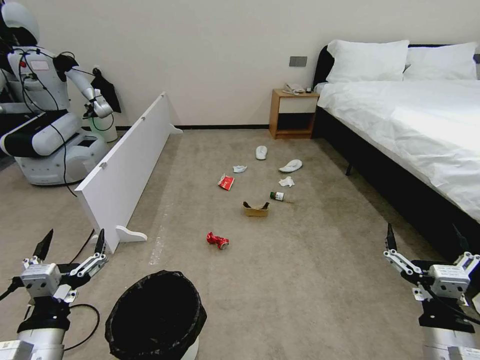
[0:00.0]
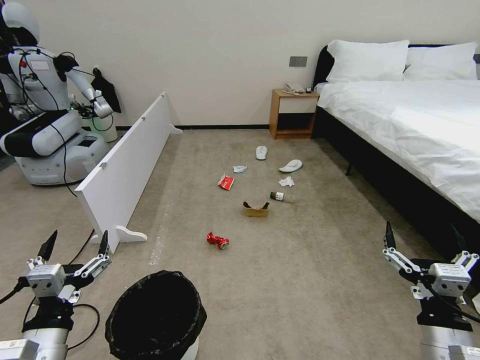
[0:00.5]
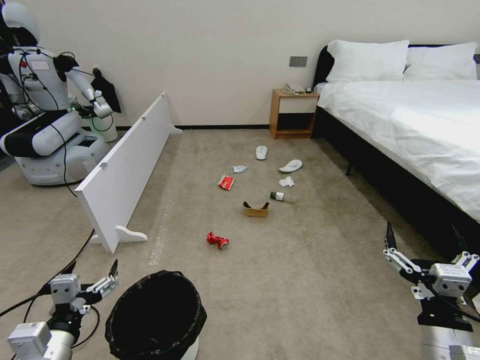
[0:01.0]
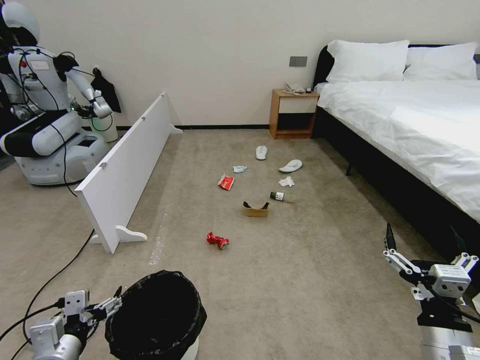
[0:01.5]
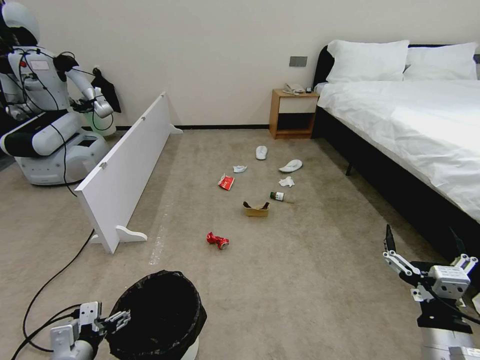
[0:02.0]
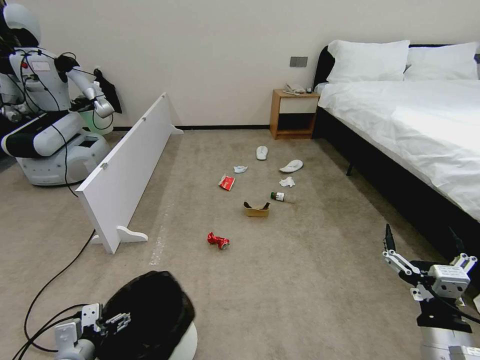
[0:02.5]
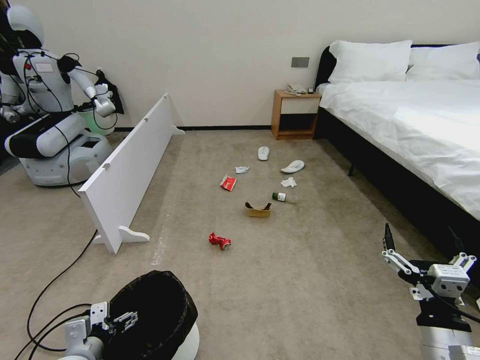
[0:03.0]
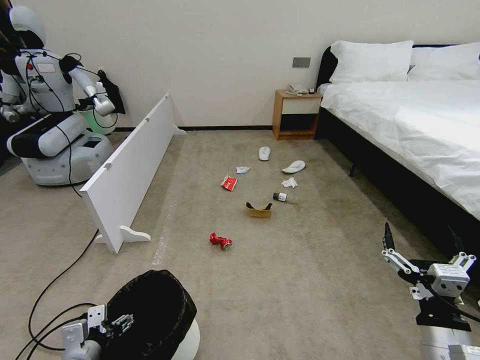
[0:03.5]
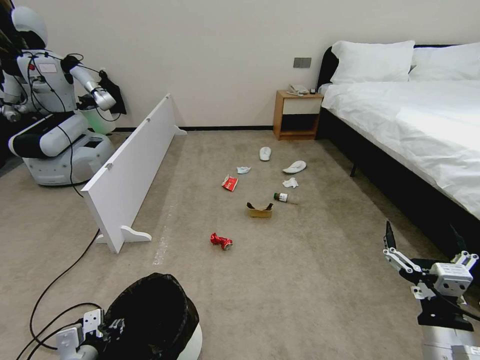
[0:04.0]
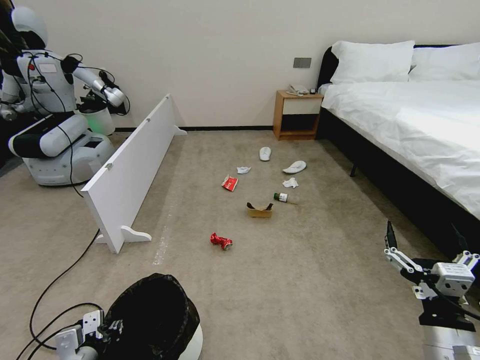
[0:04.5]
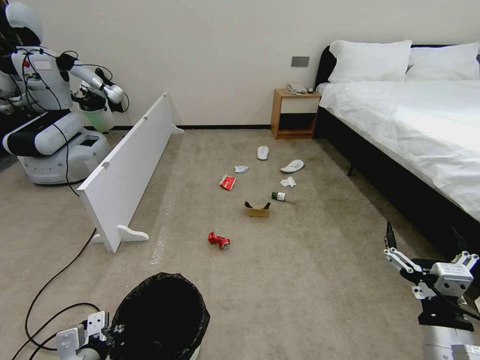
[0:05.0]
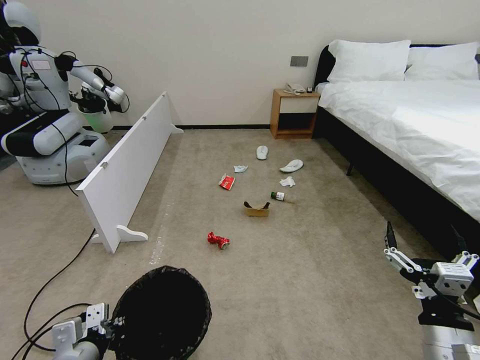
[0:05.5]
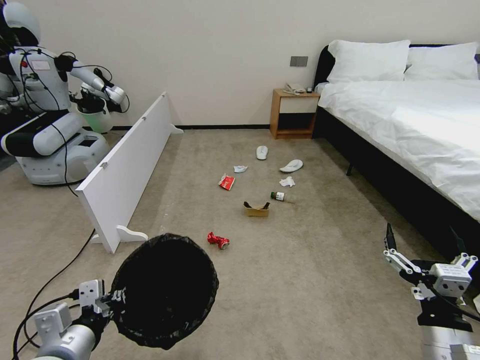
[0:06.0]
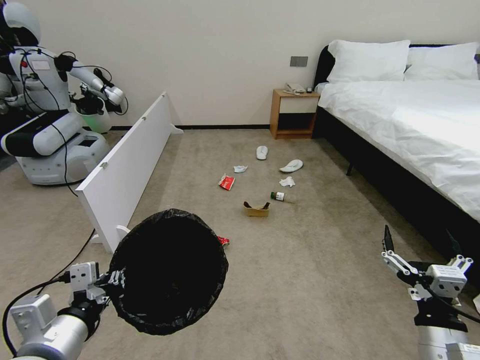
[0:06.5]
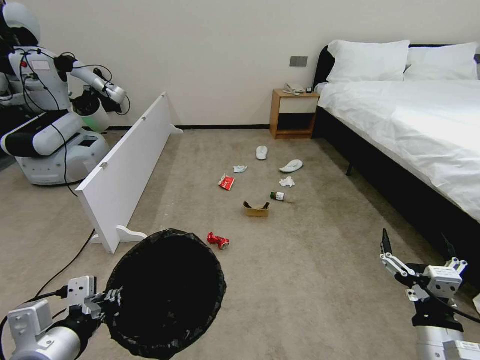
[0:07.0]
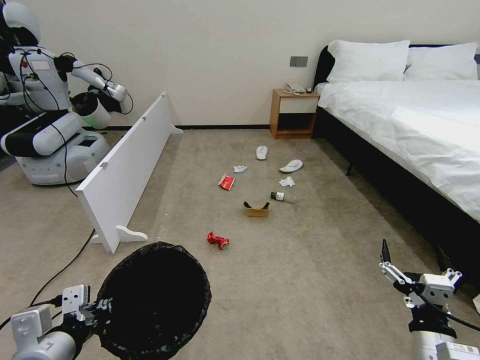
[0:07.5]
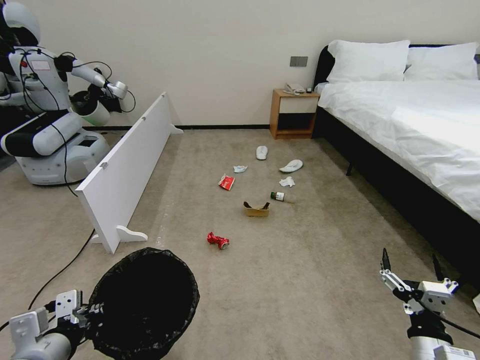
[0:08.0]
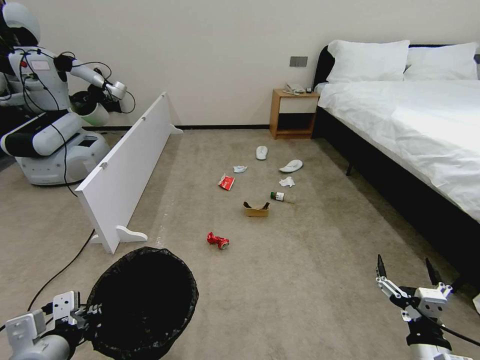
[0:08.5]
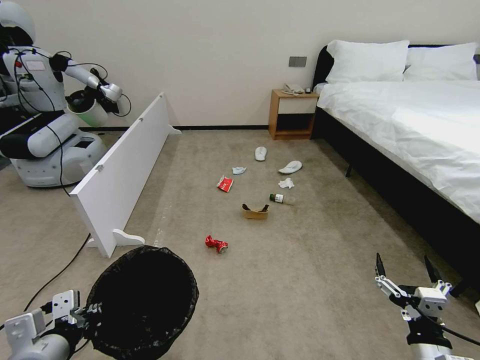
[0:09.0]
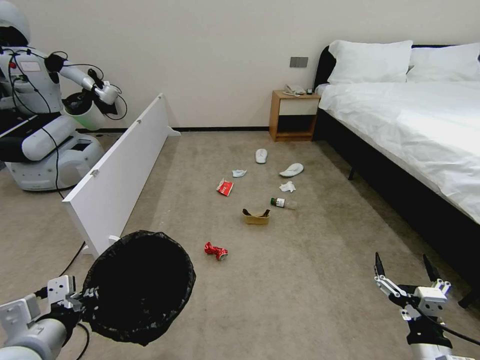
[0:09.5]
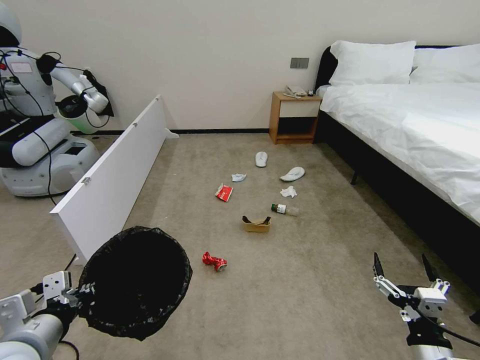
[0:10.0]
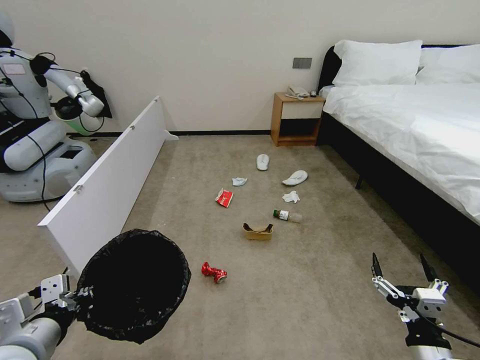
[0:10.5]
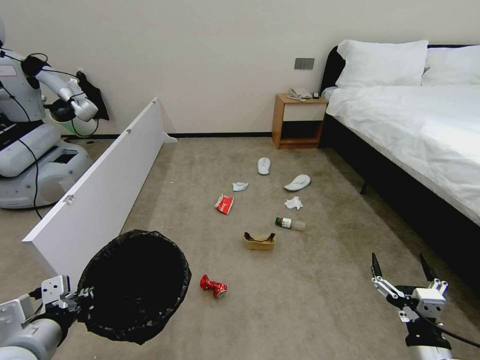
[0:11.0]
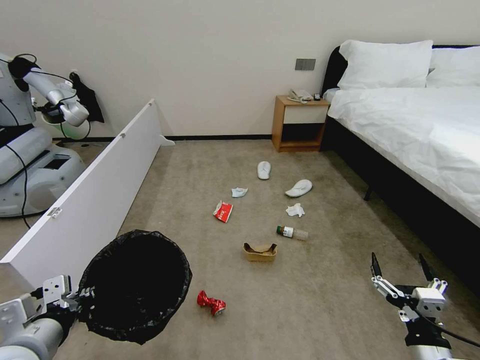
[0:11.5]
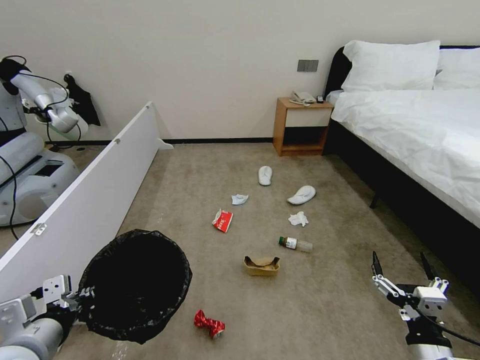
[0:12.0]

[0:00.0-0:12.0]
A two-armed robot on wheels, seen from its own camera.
Task of the whole recording: Pick up the trash bin, then pick up the garbage from the floor and place it into the trash bin.
0:02.0 to 0:04.0: The left gripper closes up.
0:04.0 to 0:06.0: The left gripper moves upward, roughly 15 cm, and closes up.
0:06.0 to 0:08.0: The right gripper is displaced downward by approximately 5 cm.

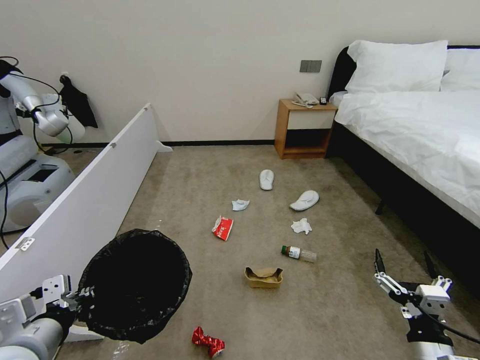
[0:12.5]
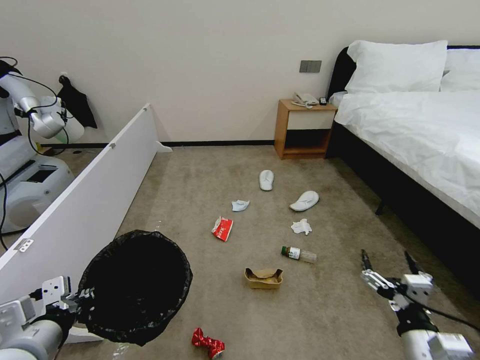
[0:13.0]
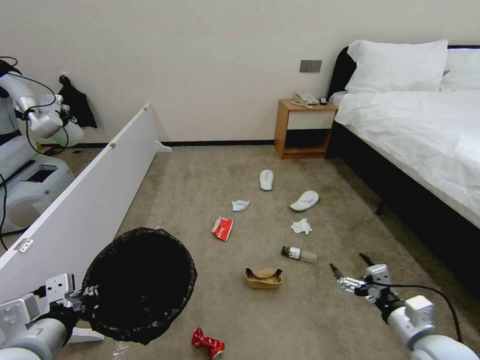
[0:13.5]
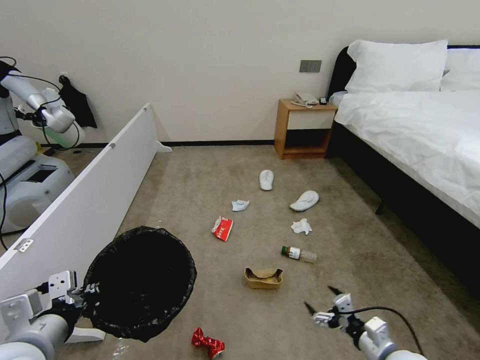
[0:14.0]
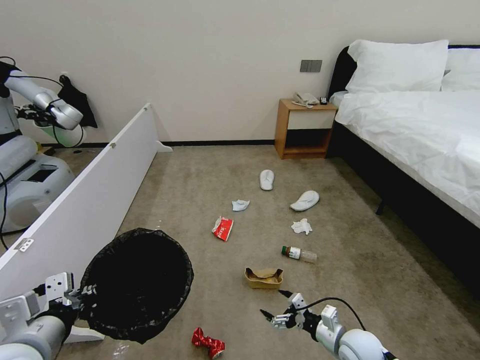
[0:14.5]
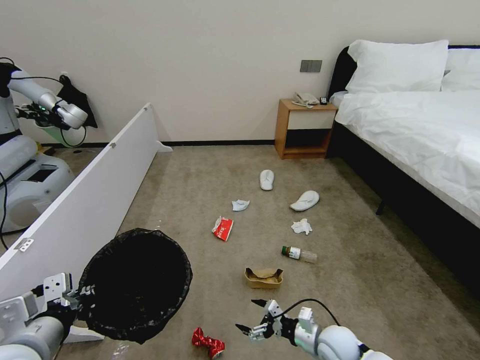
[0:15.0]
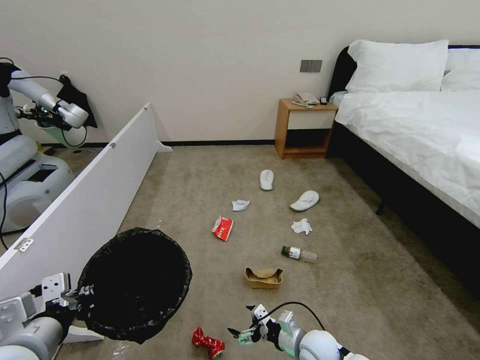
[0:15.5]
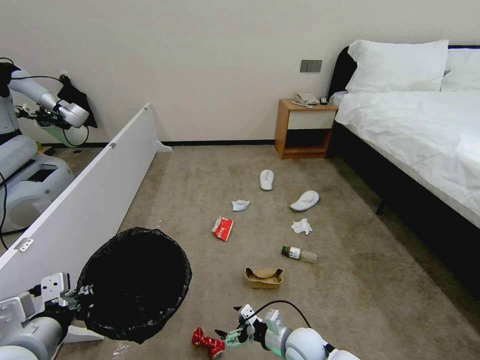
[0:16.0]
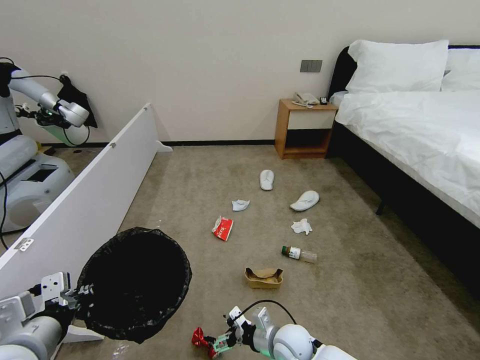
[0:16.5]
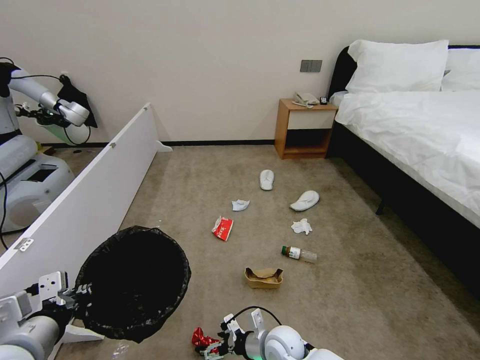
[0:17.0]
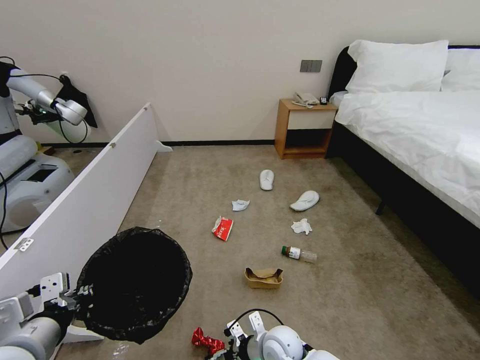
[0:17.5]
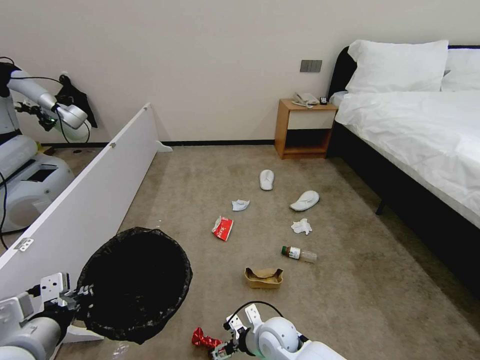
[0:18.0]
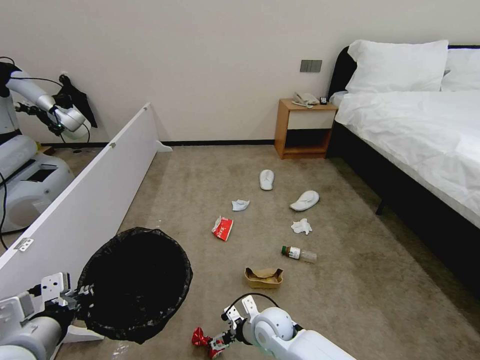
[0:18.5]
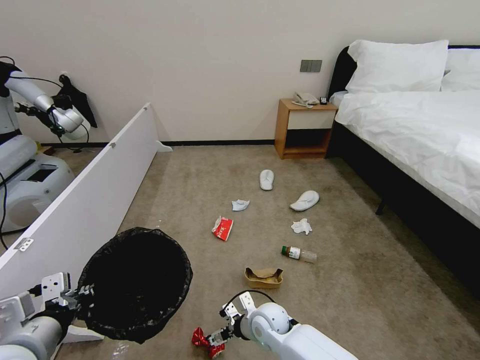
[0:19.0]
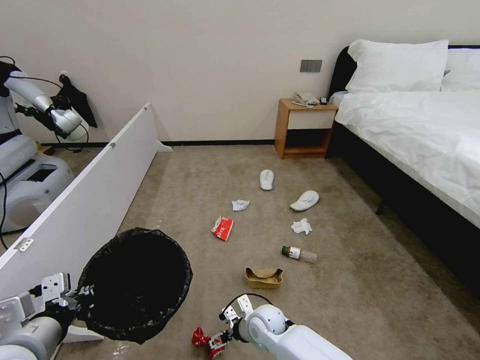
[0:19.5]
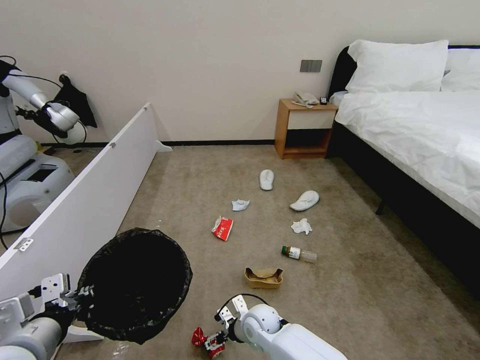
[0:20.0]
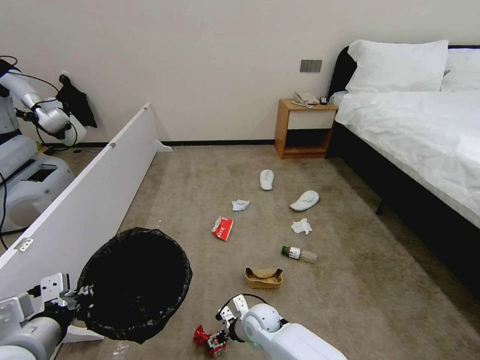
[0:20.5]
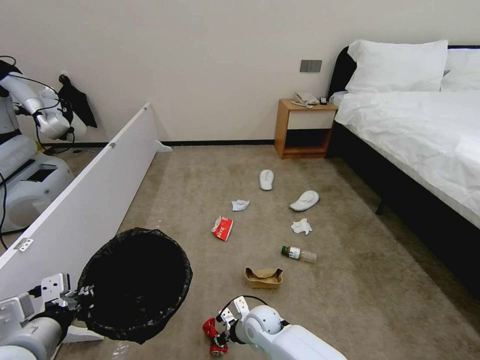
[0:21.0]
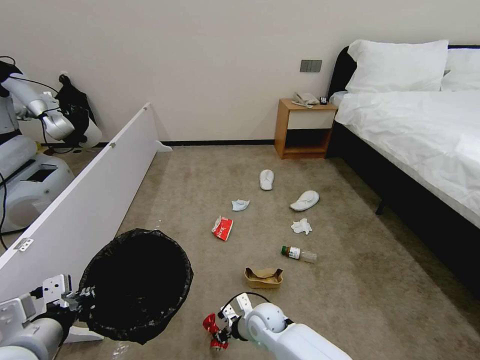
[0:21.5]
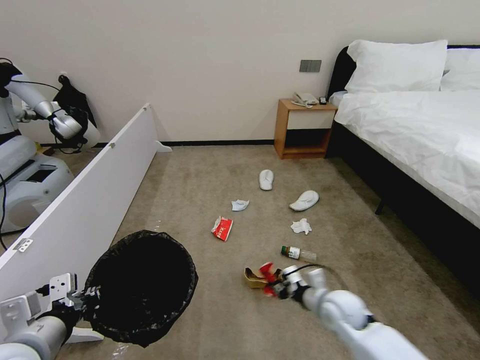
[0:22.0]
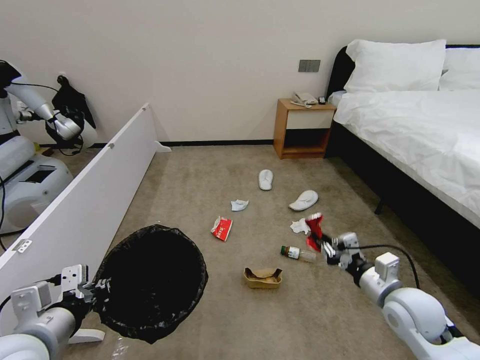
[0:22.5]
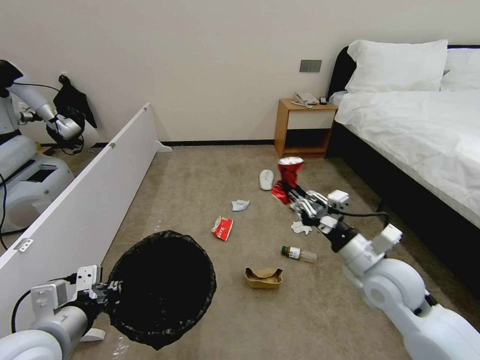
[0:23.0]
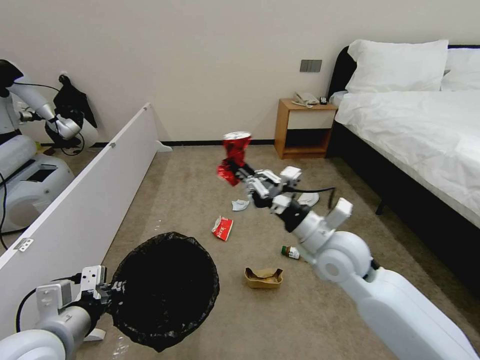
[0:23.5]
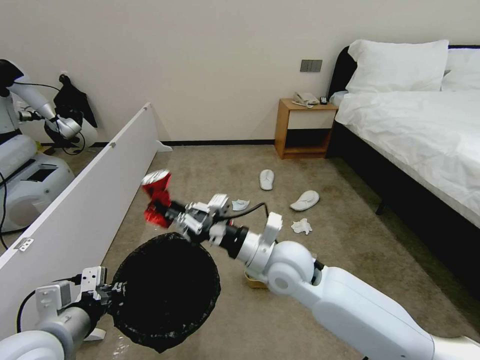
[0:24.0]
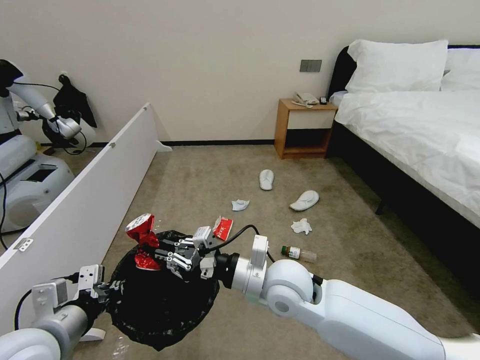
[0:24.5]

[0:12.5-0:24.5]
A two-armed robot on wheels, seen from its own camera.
Task of the whole recording: Pick up the trash bin, then pick up the garbage from the floor and place it into the trash bin.
0:12.5 to 0:14.5: The right gripper moves forward and downward, about 20 cm.
0:14.5 to 0:16.5: The right gripper heads to the left, covering approximately 15 cm.
0:16.5 to 0:18.5: The right gripper ends up some 5 cm from where it was.
0:18.5 to 0:20.5: The grippers stay close to where they were, moving slightly.
0:20.5 to 0:22.5: The right gripper travels to the right and upward by roughly 35 cm, and closes.
0:22.5 to 0:24.5: The right gripper is displaced to the left by approximately 25 cm.

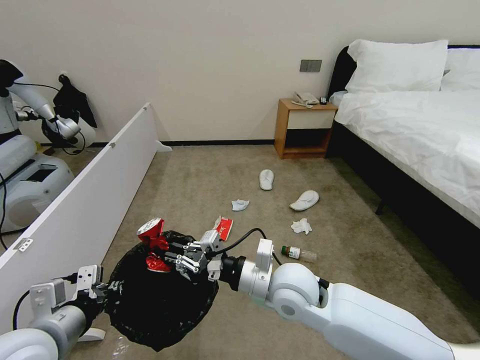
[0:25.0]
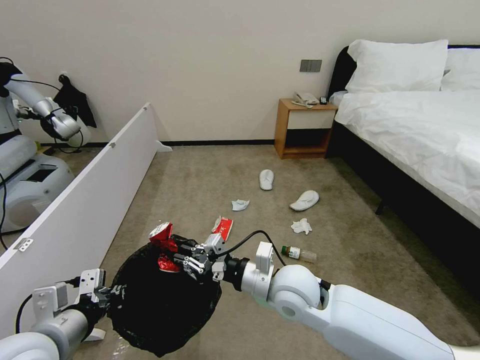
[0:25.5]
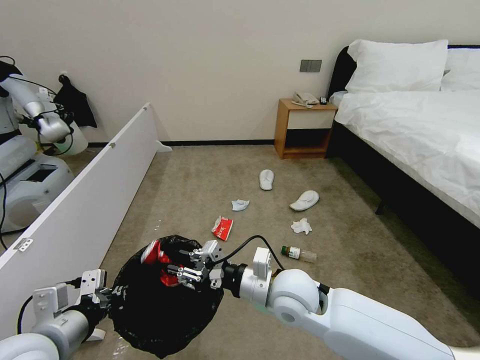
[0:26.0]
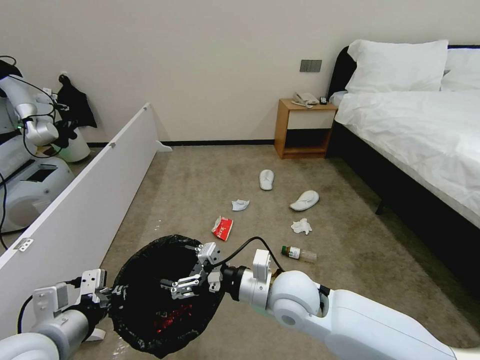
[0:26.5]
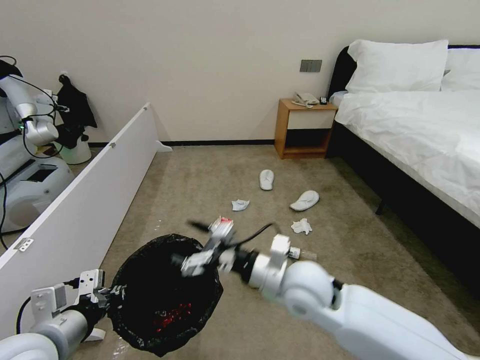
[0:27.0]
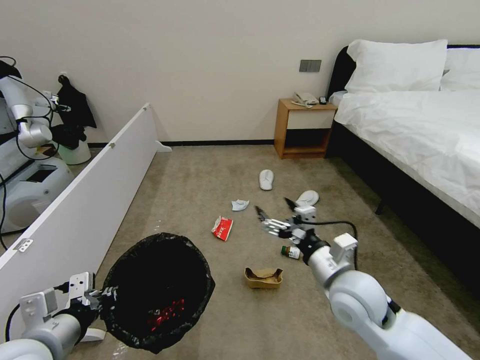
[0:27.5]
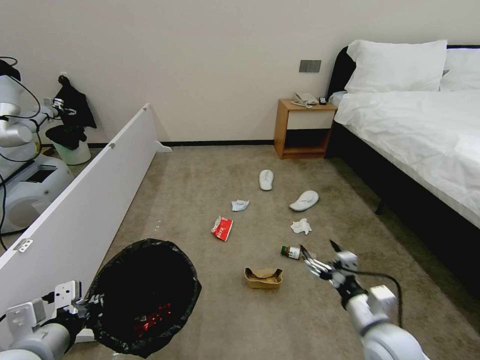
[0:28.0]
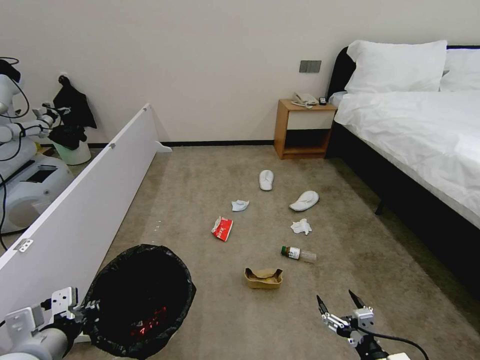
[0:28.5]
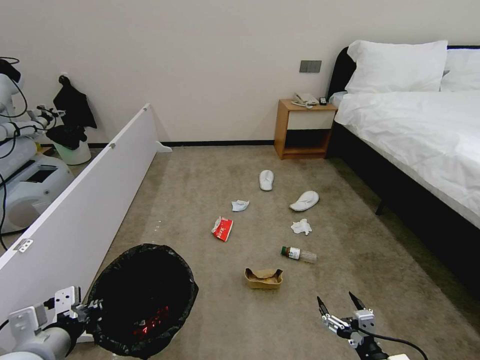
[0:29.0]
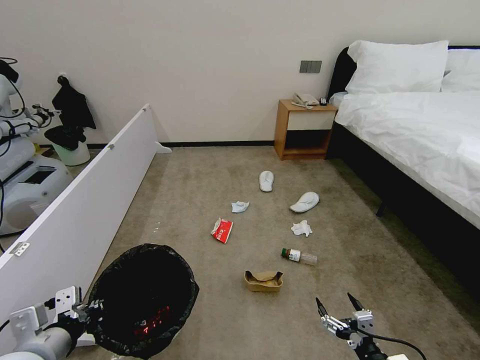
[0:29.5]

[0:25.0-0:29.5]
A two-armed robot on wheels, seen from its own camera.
Task of the whole recording: Pick up the trash bin, then pick up the garbage from the floor and place it into the trash bin.
0:25.0 to 0:27.0: The right gripper opens its fingers.
0:27.0 to 0:29.5: The right gripper heads downward, to the right and backward, covering roughly 35 cm.
